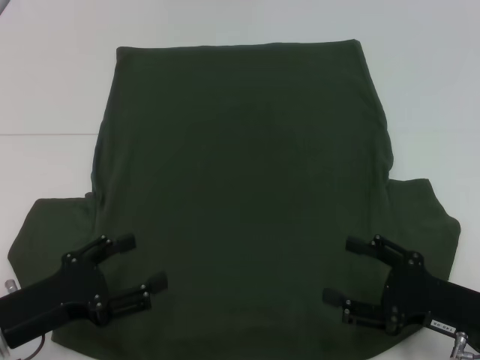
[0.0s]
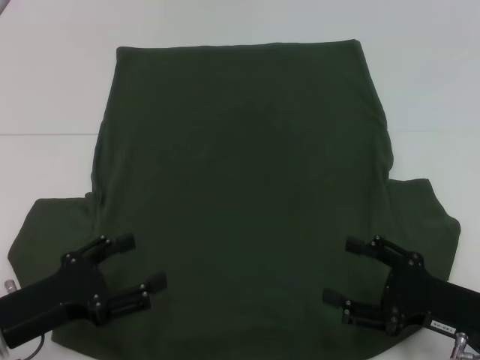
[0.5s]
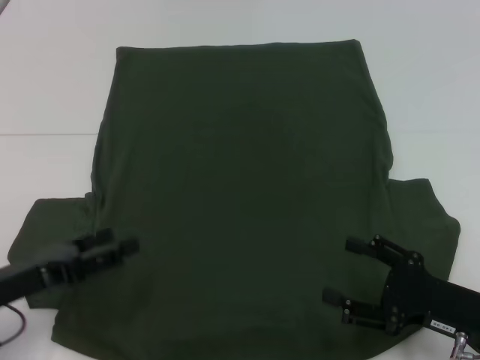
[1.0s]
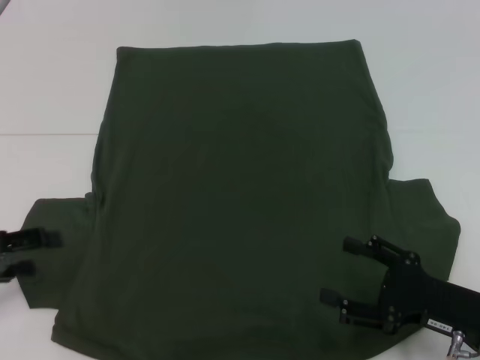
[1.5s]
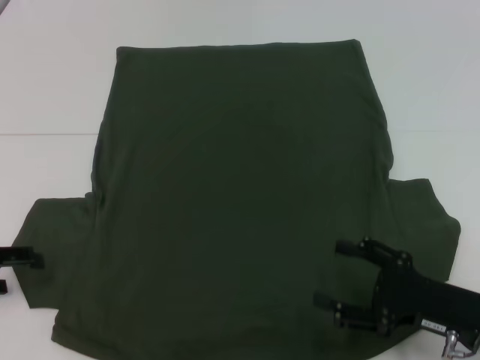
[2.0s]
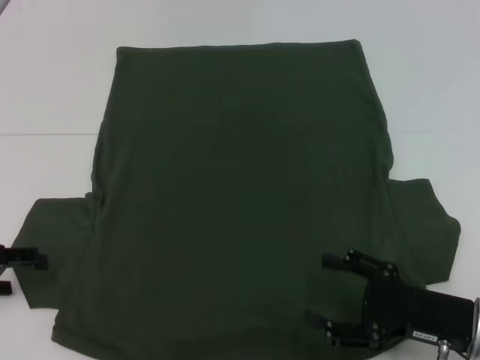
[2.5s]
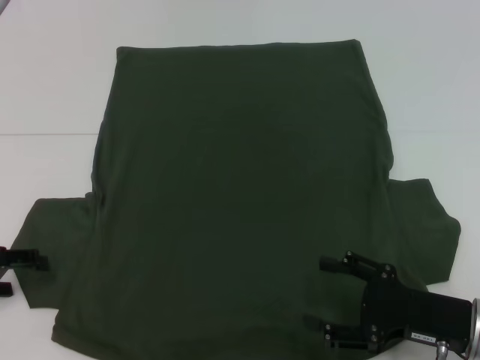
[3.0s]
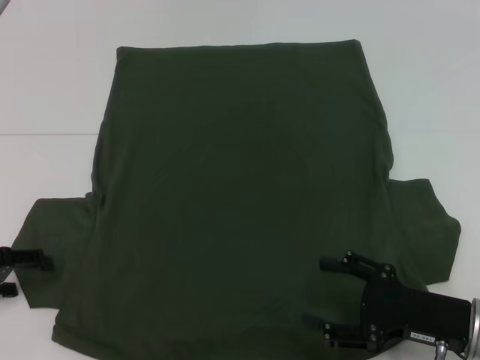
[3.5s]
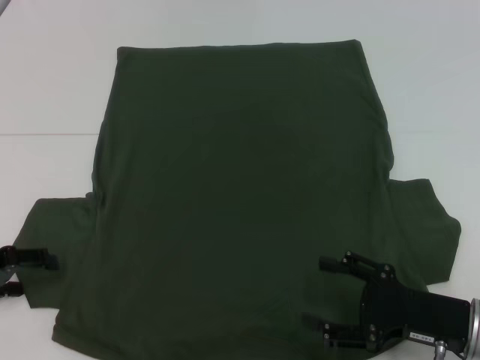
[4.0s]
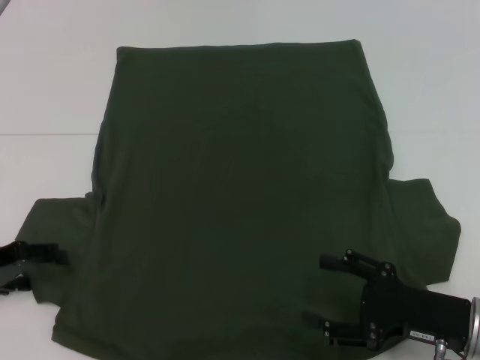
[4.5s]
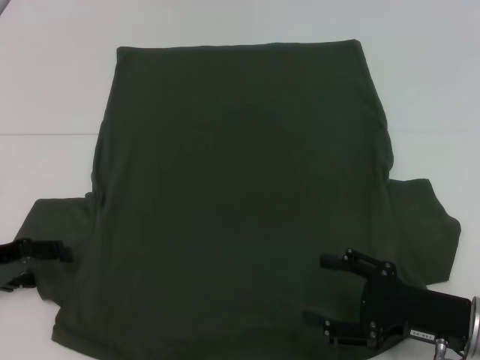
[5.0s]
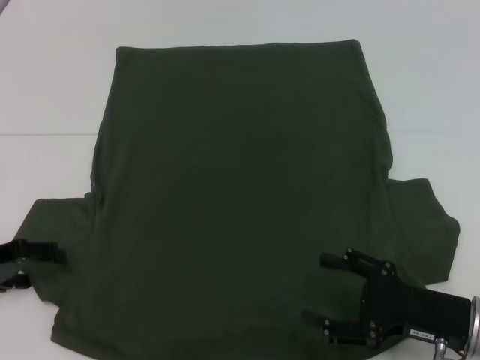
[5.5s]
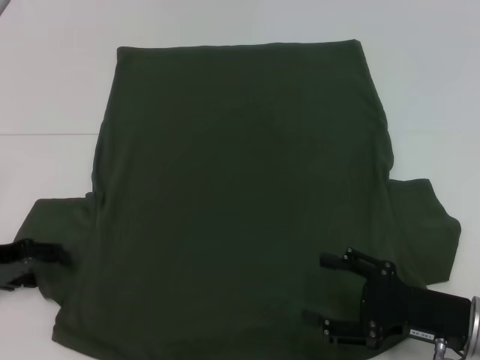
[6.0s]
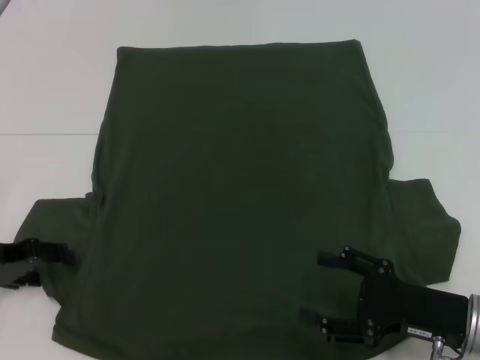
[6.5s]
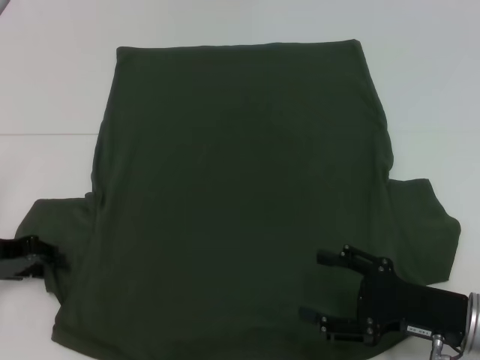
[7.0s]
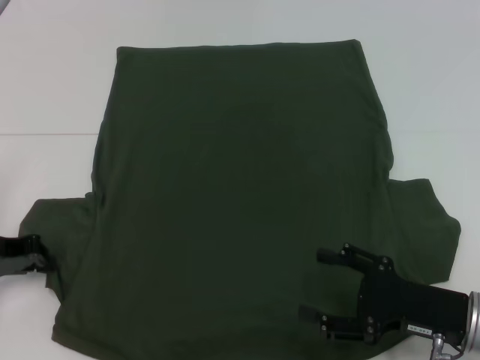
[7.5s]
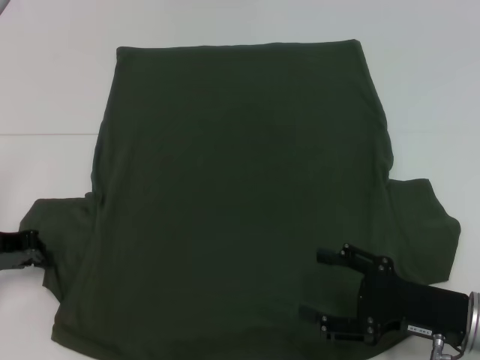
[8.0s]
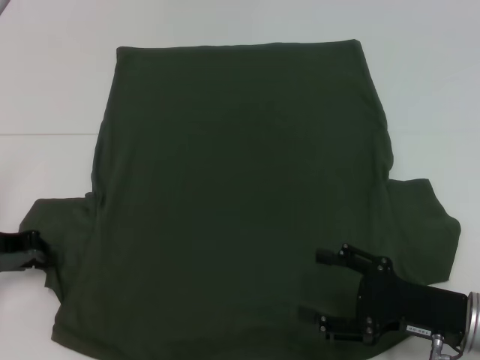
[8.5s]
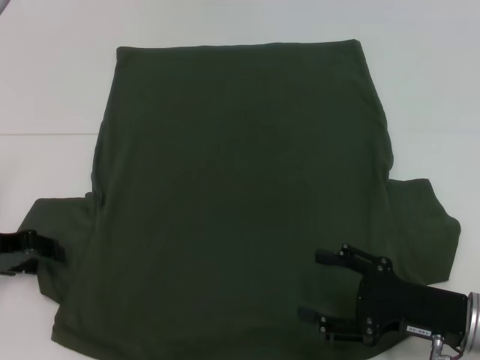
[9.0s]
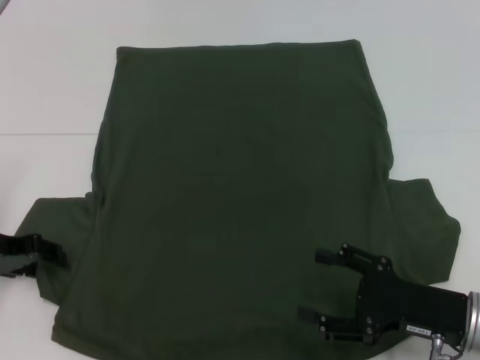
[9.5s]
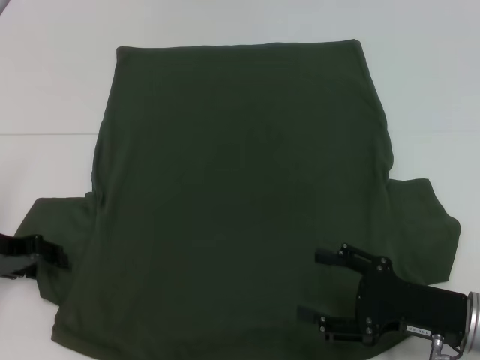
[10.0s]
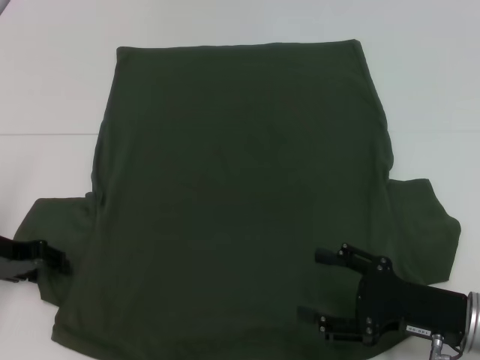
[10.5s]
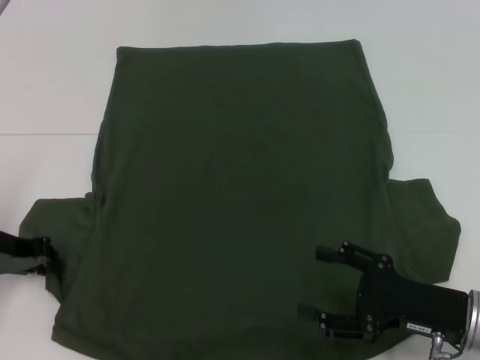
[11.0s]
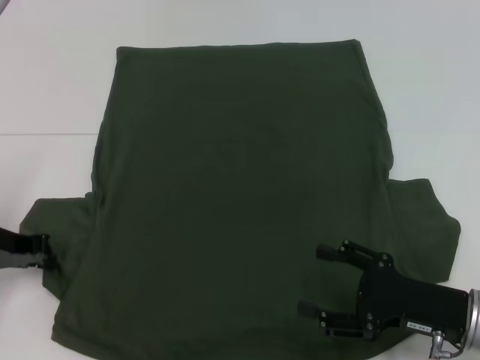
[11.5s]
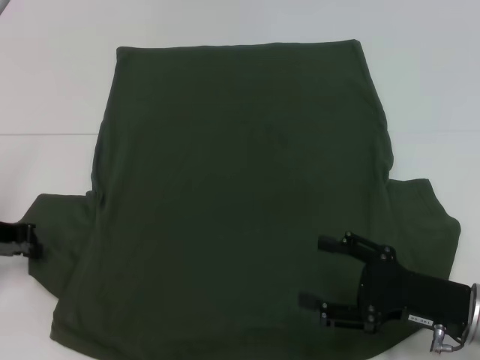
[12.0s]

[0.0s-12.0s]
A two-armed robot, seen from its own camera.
0.0s to 2.0s: The left gripper travels to the left and forward by approximately 15 cm.
2.0s to 6.0s: The grippers move only a little.
6.0s to 8.0s: The left gripper closes.
8.0s to 10.0s: The left gripper opens.
10.0s to 12.0s: The left gripper closes.

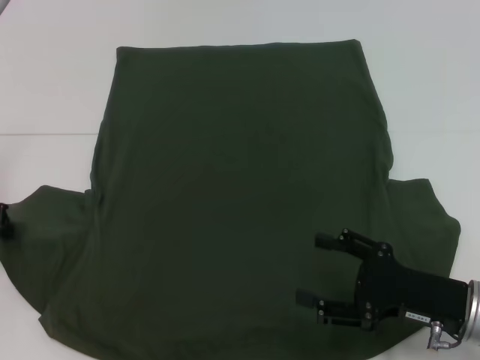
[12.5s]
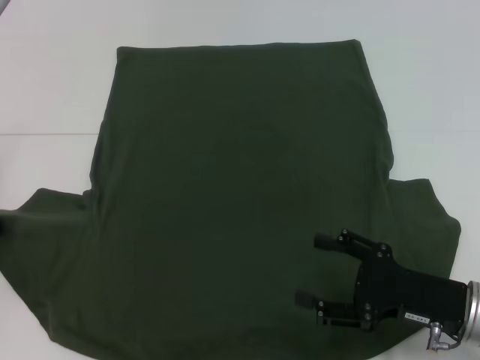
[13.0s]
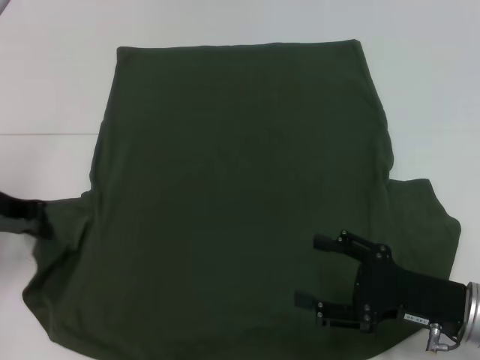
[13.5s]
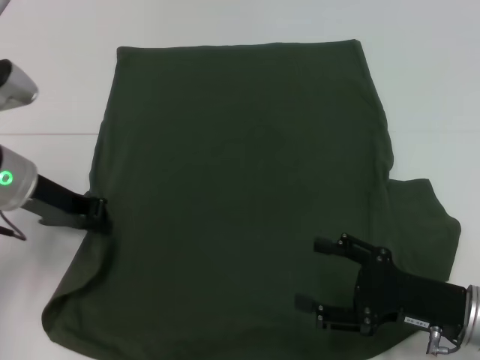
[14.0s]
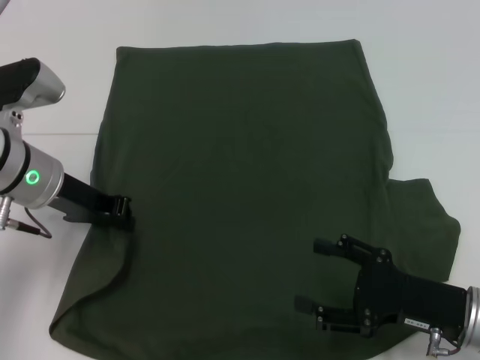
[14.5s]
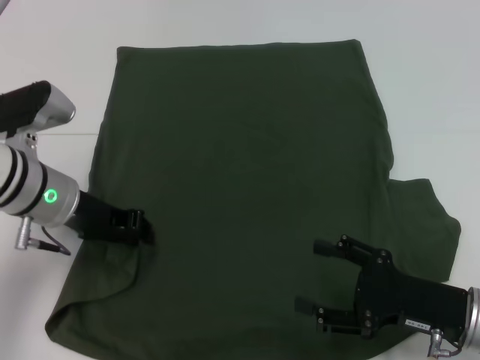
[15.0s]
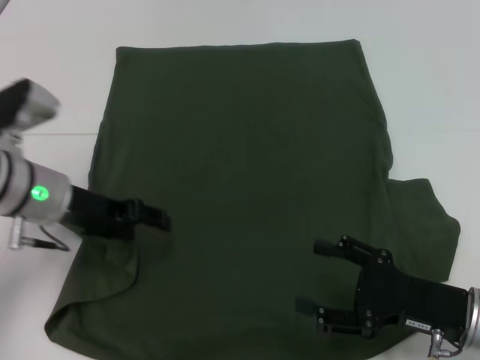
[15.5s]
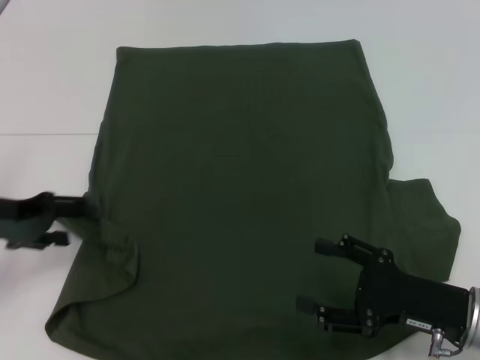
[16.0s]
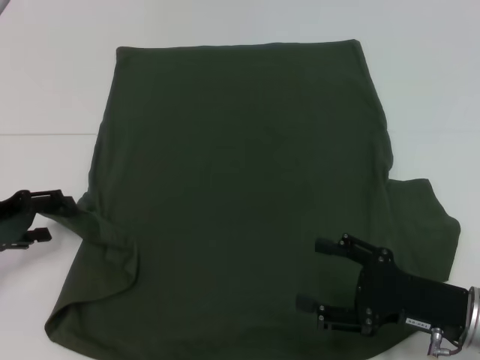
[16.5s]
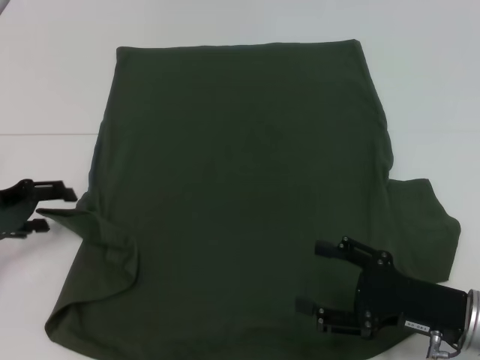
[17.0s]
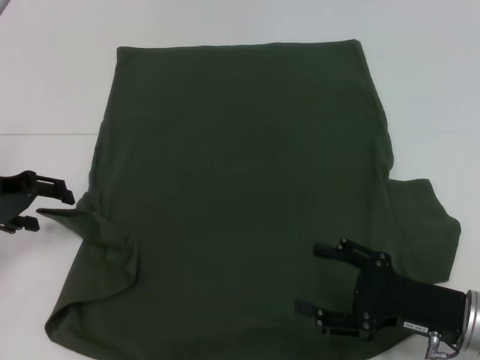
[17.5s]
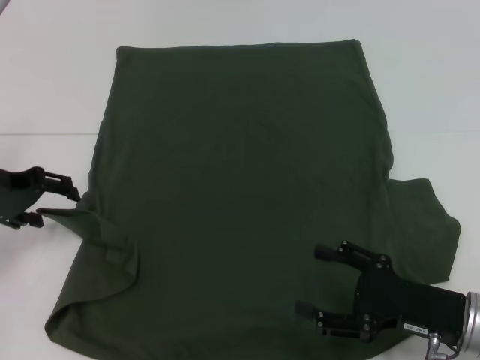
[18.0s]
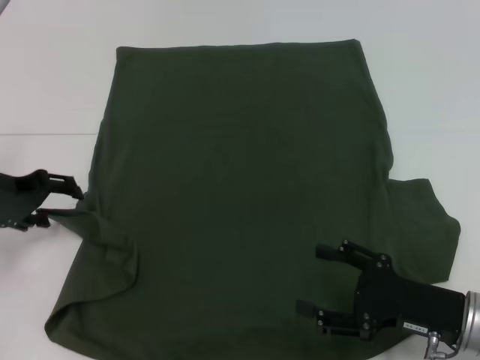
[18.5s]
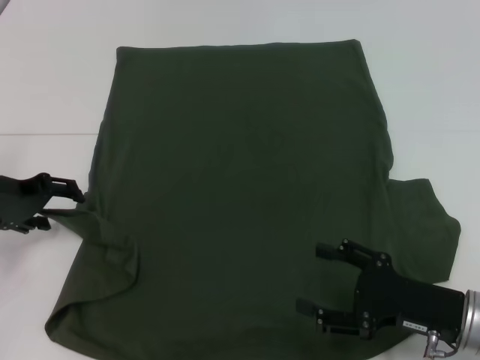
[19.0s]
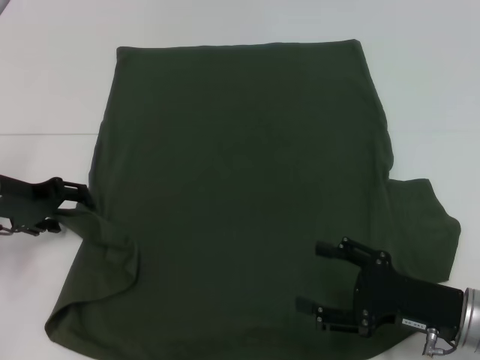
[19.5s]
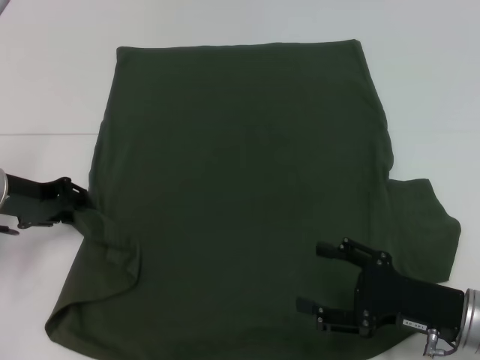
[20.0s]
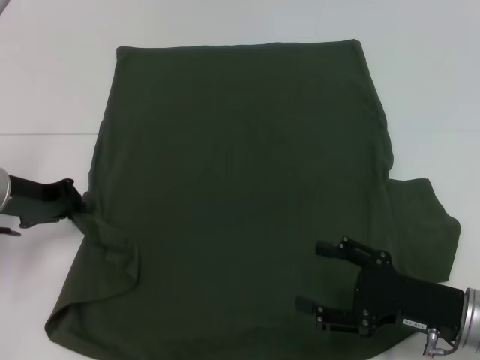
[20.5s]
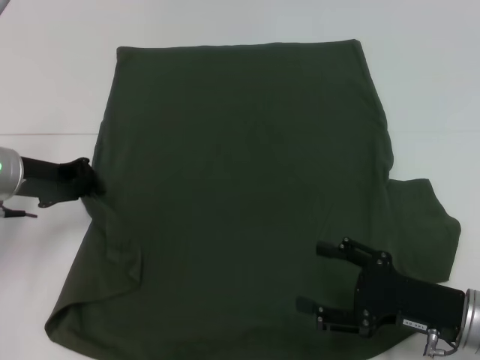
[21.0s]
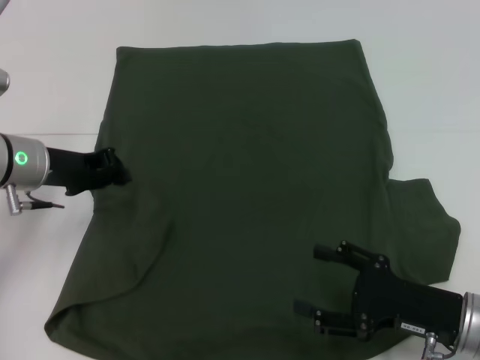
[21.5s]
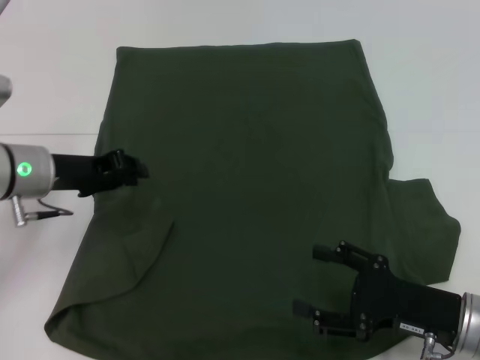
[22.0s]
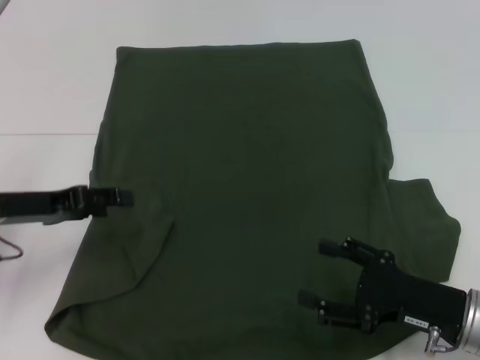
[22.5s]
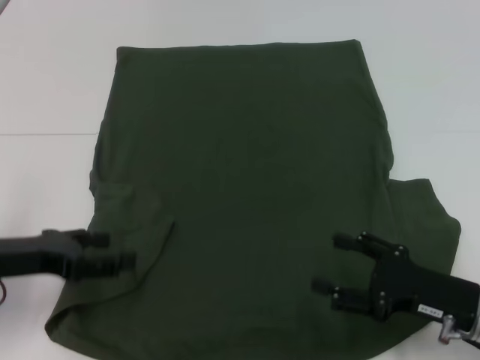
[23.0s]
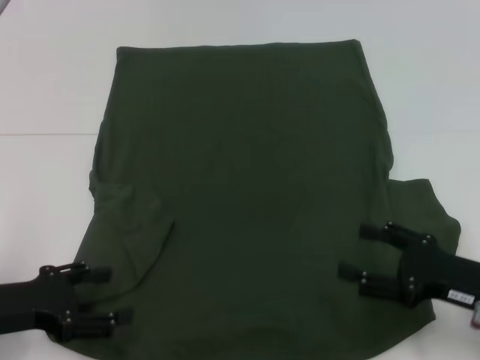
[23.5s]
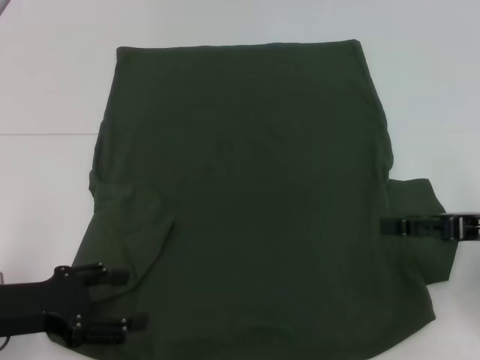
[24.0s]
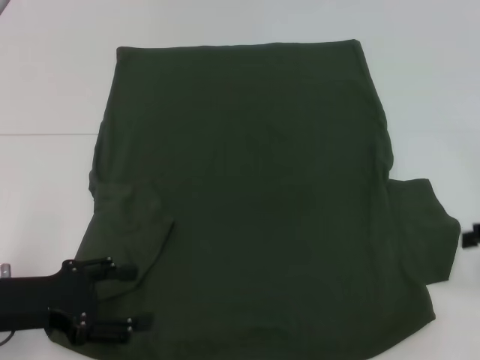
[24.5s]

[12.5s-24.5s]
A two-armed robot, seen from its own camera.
Step, 12.5s to 21.5s: Fold the bottom left sleeve with your left hand.
12.5s to 14.5s: The left gripper heads to the right, covering about 10 cm.
14.5s to 16.5s: The left gripper travels to the left by some 10 cm, and opens.
16.5s to 18.5s: The left gripper moves forward, some 5 cm.
18.5s to 20.5s: The left gripper closes up.
20.5s to 22.5s: The left gripper opens its fingers.
22.5s to 24.5s: The right gripper travels upward, to the right and forward by some 20 cm; the left gripper heads backward, covering approximately 10 cm.

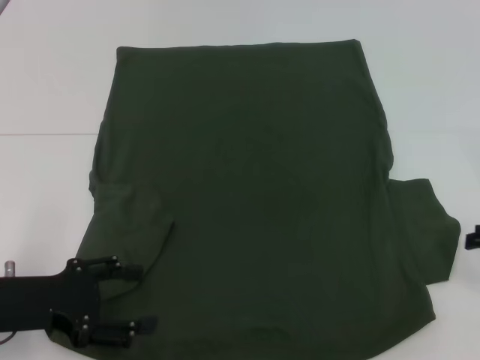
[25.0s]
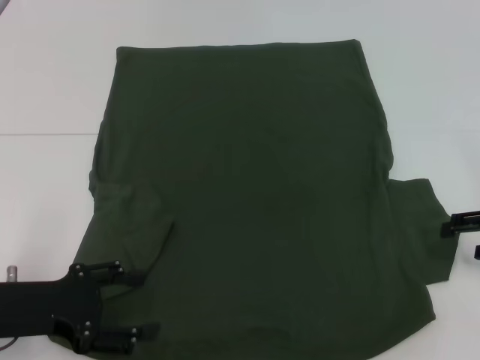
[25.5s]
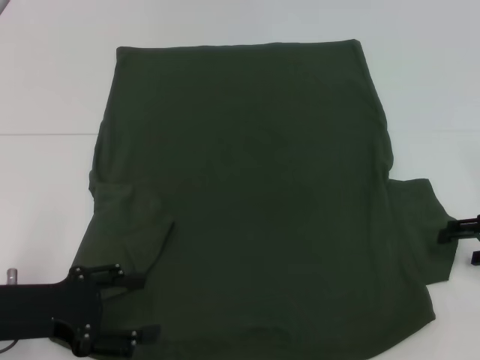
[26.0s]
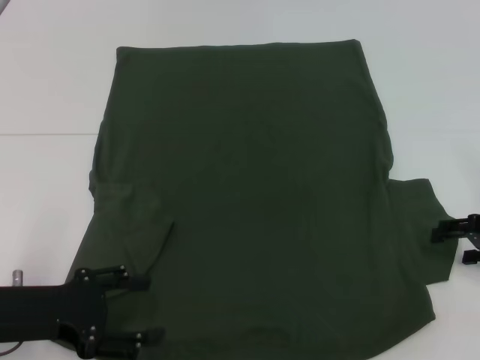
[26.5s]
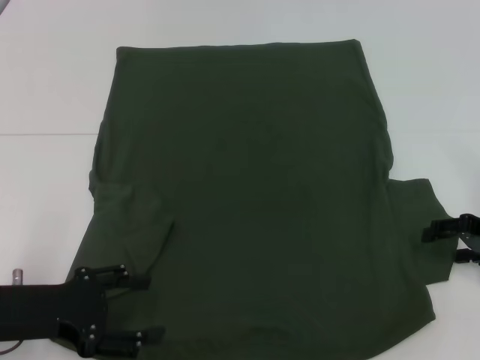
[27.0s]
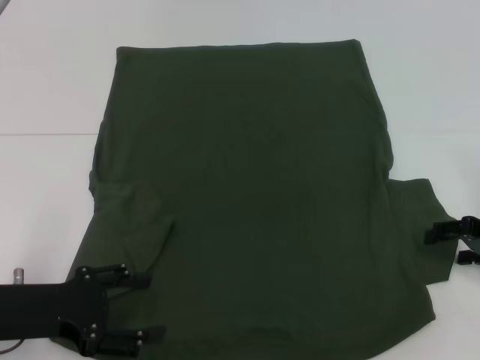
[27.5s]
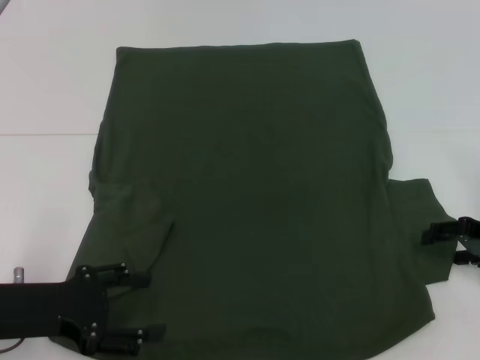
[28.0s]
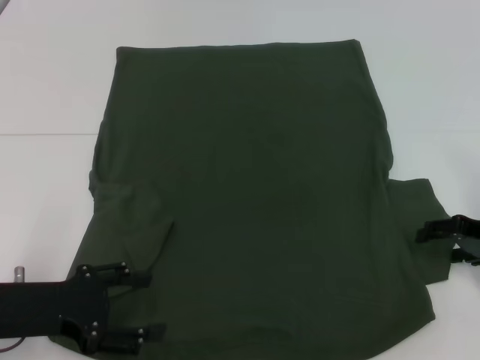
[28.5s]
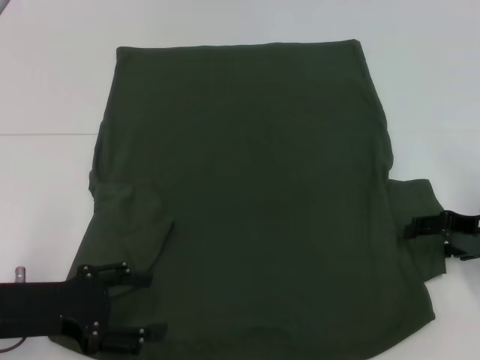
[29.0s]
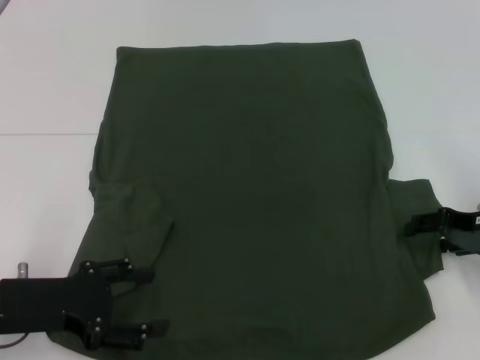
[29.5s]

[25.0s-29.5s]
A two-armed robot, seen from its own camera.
25.0s to 27.0s: The right gripper shifts by about 5 cm.
27.0s to 29.5s: The grippers move only a little.
